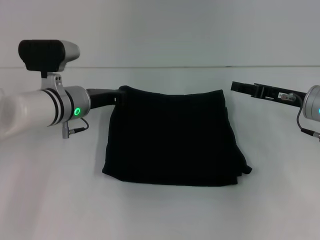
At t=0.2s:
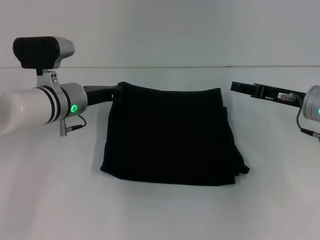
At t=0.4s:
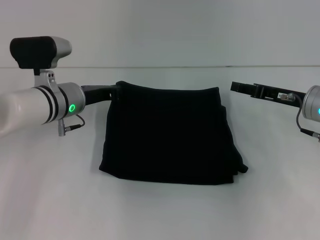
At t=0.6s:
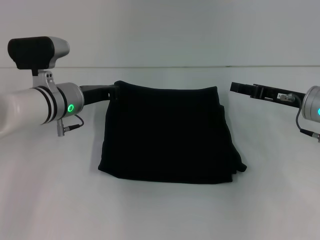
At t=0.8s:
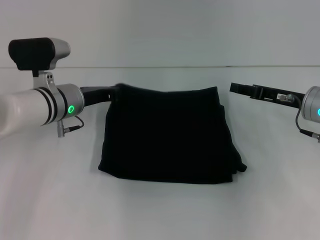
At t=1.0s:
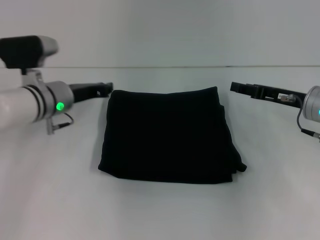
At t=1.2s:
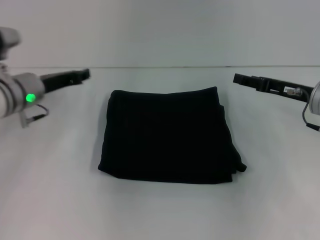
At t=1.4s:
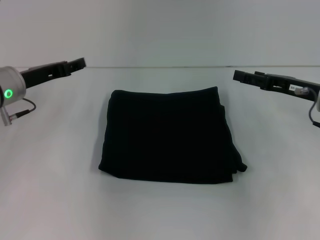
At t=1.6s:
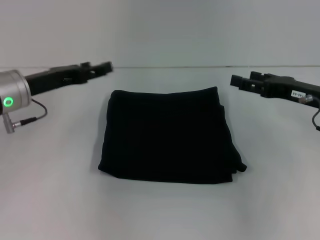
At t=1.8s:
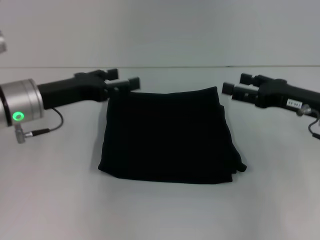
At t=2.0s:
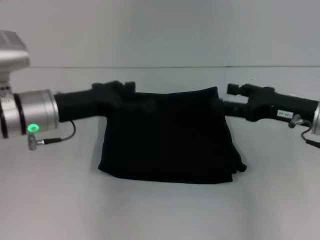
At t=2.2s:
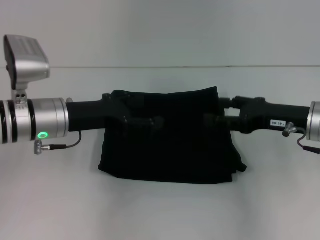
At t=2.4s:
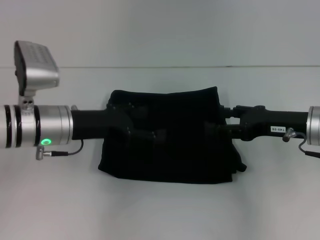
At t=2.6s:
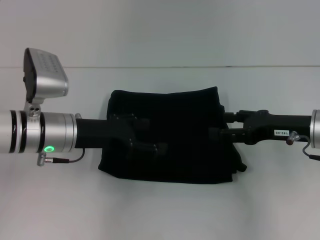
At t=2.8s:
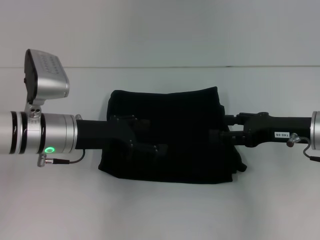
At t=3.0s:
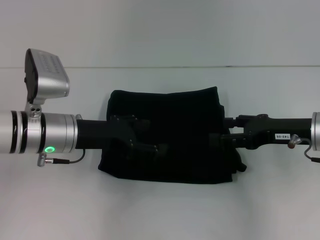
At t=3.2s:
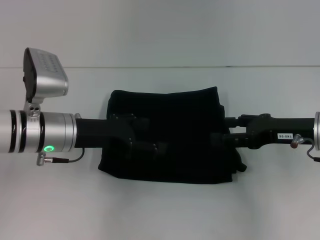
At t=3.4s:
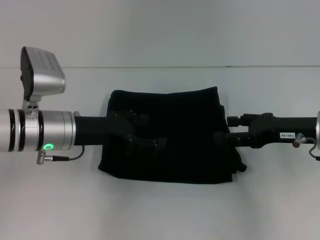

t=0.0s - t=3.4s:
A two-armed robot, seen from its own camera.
t=0.0s - t=1.6s: The left gripper shifts about 10 cm to the left and upward, and opens up.
t=1.6s - t=3.4s: The left gripper goes about 5 cm to the right, and opens its fingers.
